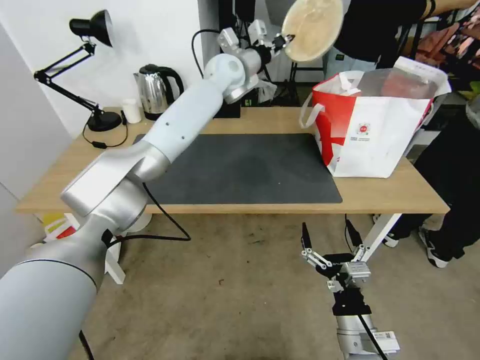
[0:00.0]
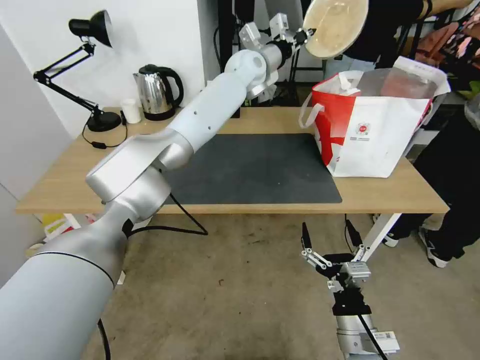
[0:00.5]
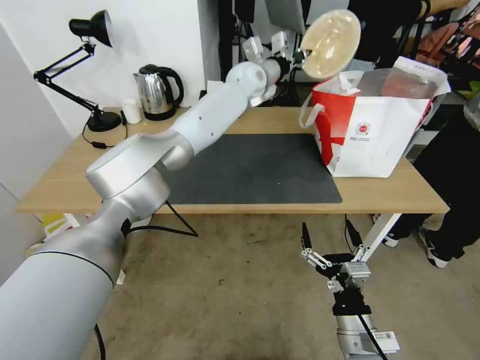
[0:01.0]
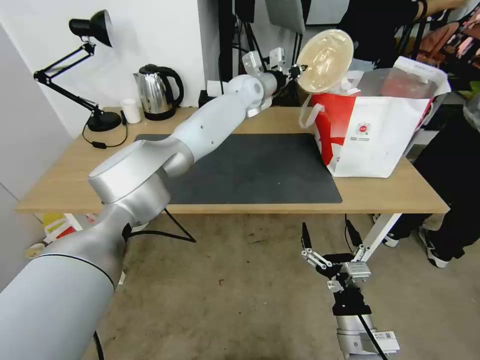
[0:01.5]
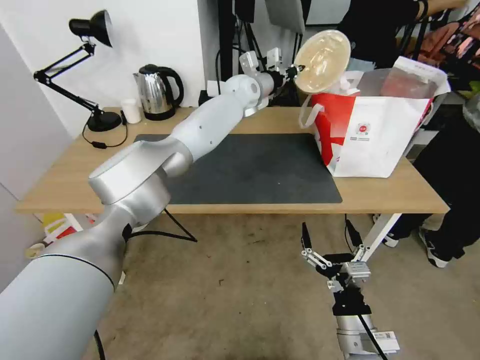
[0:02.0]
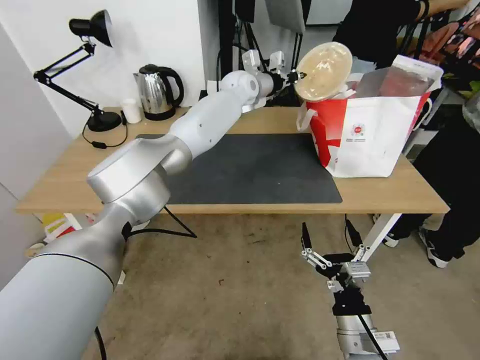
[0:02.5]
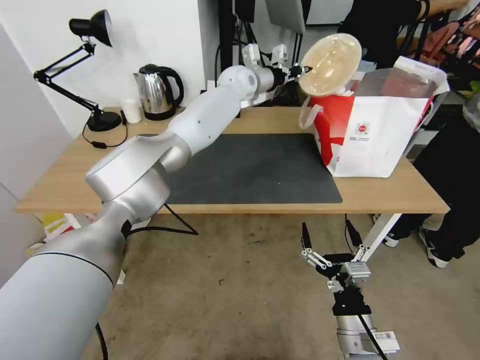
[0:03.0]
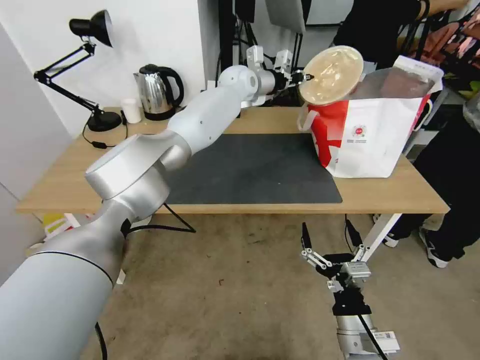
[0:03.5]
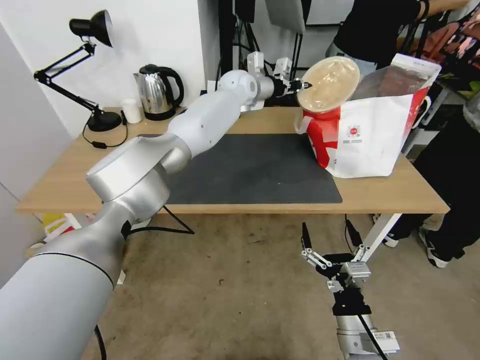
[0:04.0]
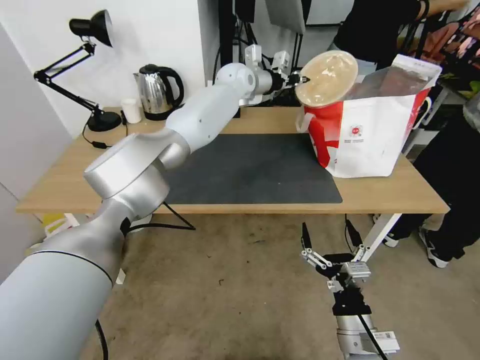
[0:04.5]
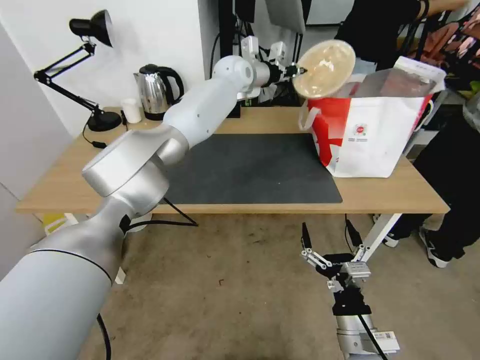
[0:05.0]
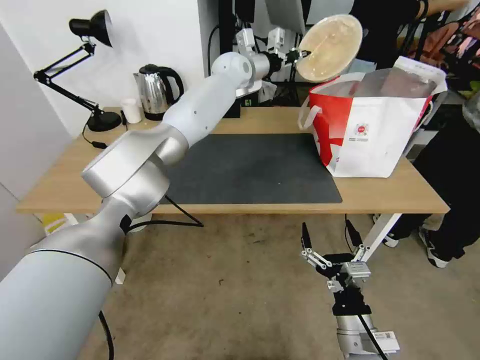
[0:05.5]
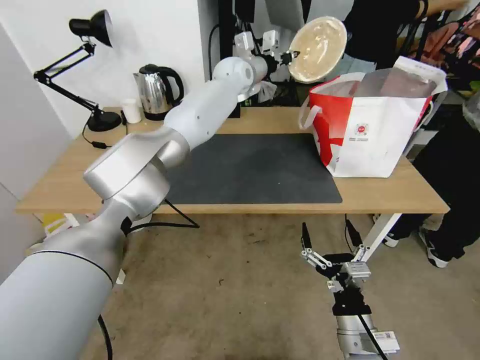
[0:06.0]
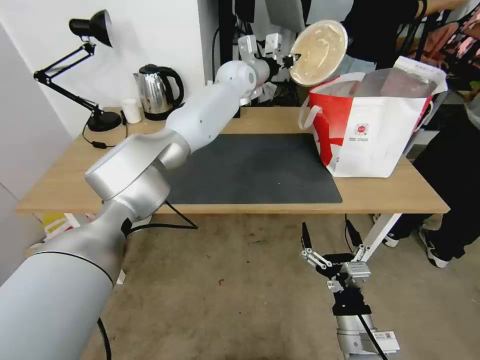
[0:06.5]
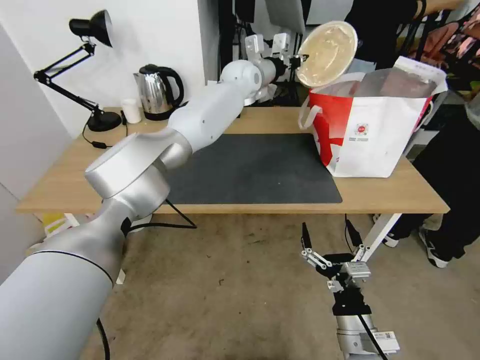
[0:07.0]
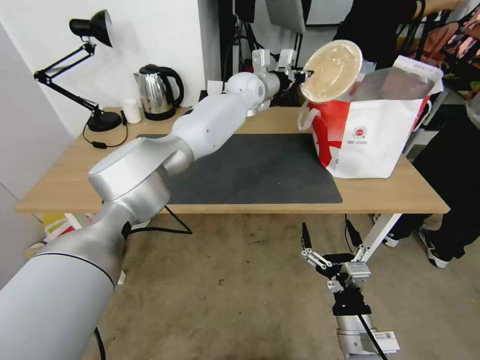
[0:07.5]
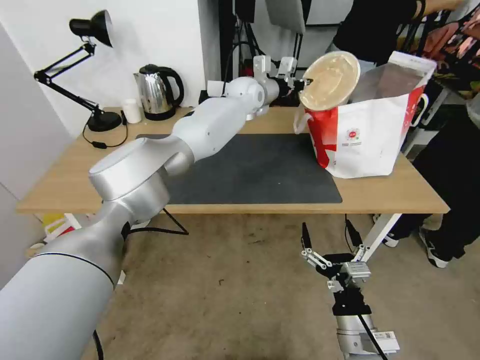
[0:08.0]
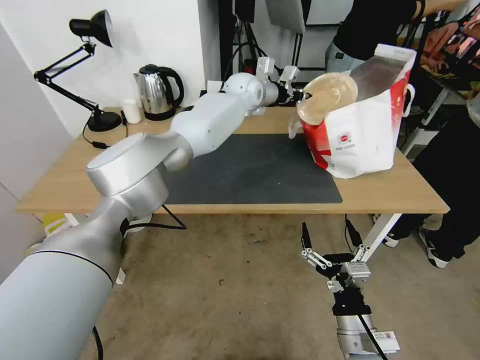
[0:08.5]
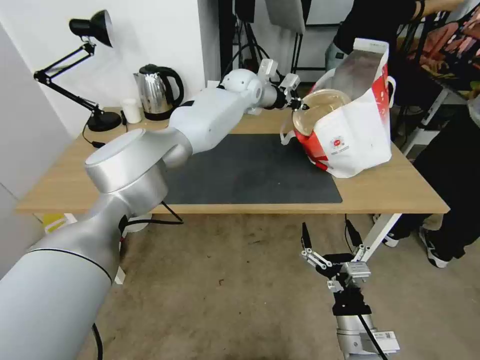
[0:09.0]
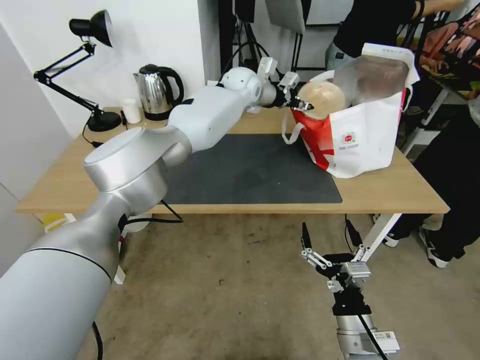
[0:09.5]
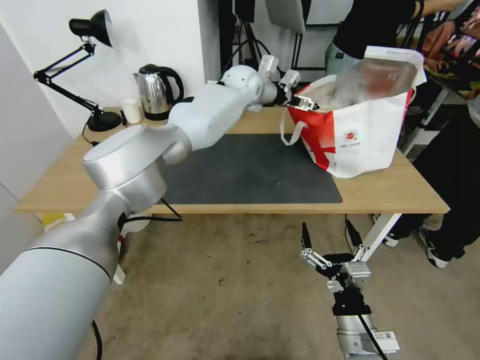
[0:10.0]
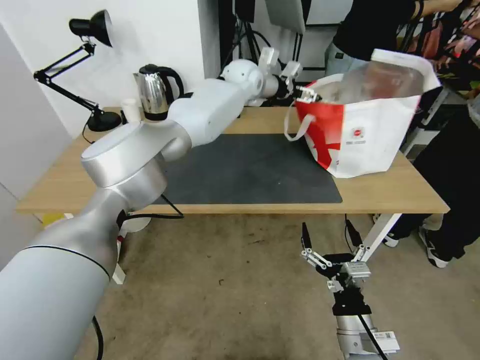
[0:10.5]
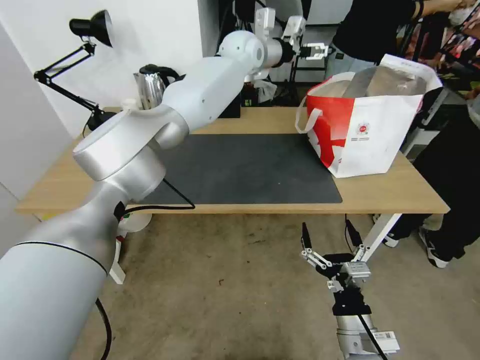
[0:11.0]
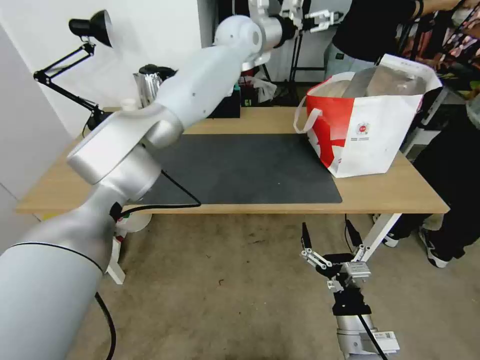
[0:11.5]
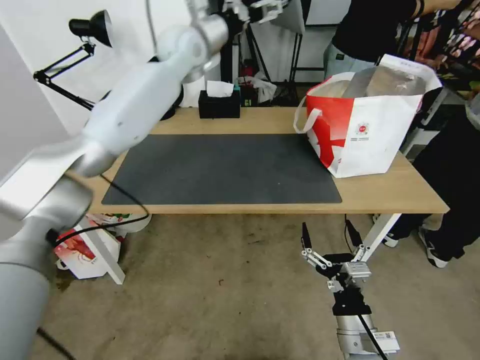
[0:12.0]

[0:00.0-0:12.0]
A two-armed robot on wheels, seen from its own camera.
Task of the whole recording: Pick up the trash from the table and place it into the takeout bag.
0:00.0 to 0:02.0: The left gripper shifts approximately 5 cm downward.
0:02.0 to 0:06.0: There are only small adjustments of the grippers.
0:06.0 to 0:08.0: The left gripper changes place by about 5 cm.
0:08.0 to 0:10.0: The left gripper opens up.
0:10.0 to 0:12.0: The left gripper shifts roughly 15 cm to the left, upward and backward.

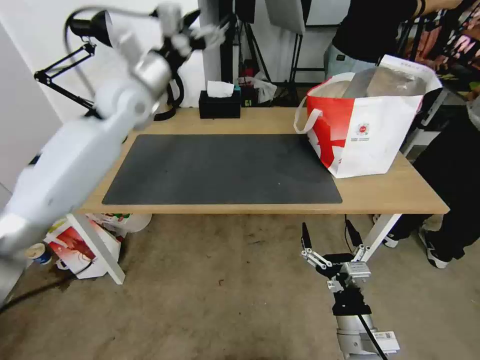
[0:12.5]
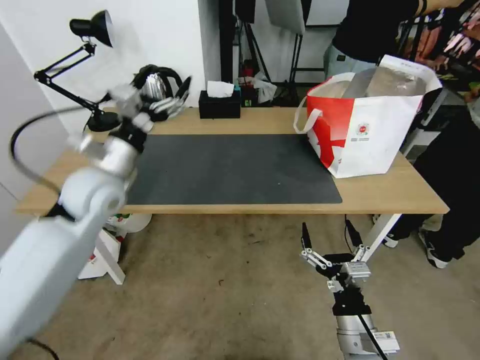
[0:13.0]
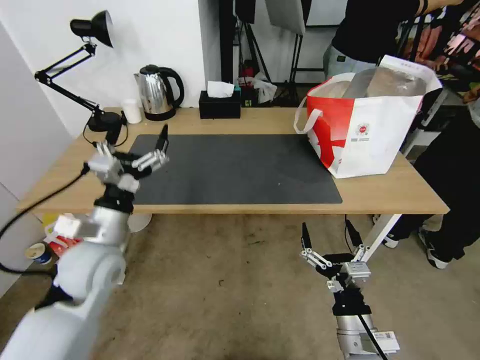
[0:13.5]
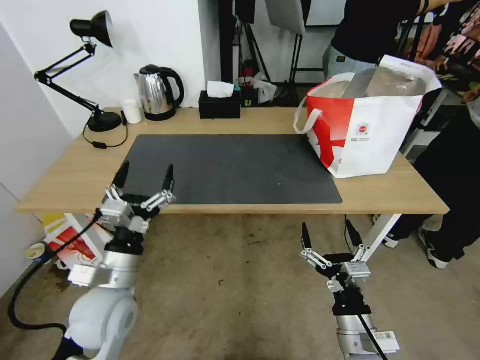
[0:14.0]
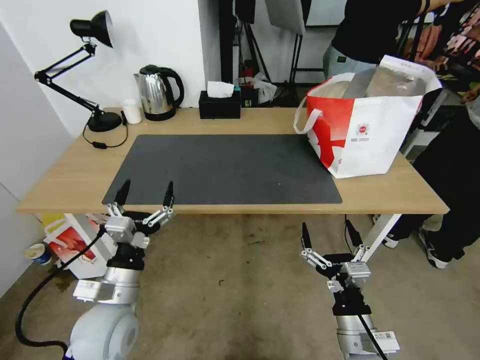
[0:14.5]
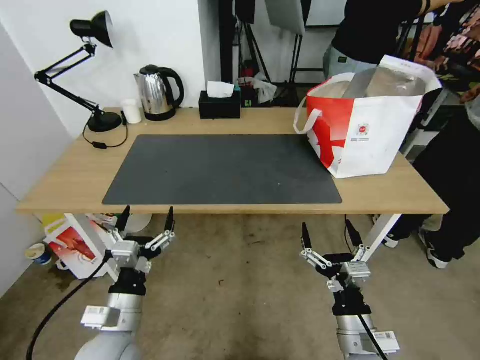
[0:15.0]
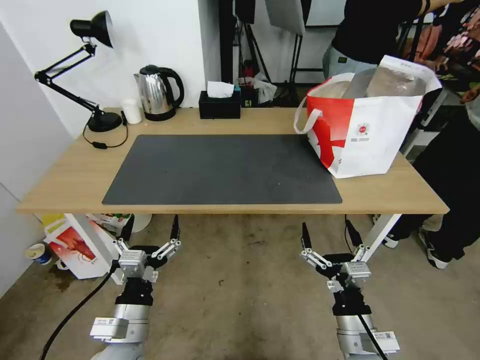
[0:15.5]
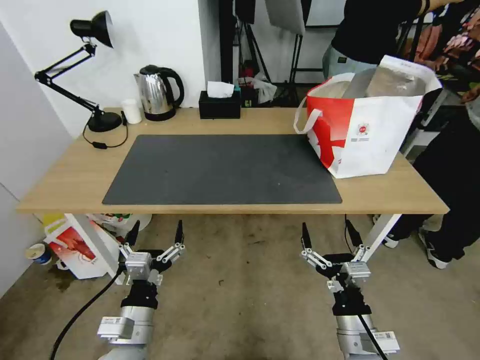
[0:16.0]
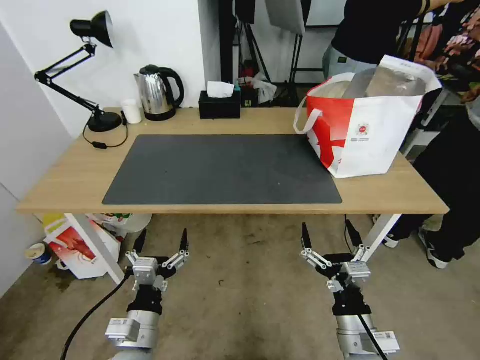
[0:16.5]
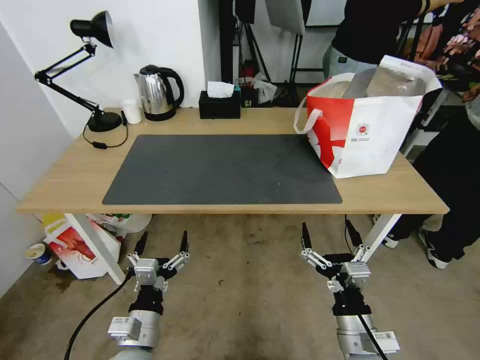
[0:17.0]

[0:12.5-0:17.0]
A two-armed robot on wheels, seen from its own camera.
Task of the whole recording: Pick up the trash from the table and place it into the takeout bag.
0:12.5 to 0:14.5: The left gripper is displaced backward and downward by roughly 40 cm.
0:14.5 to 0:17.0: The left gripper moves downward and backward, about 10 cm.

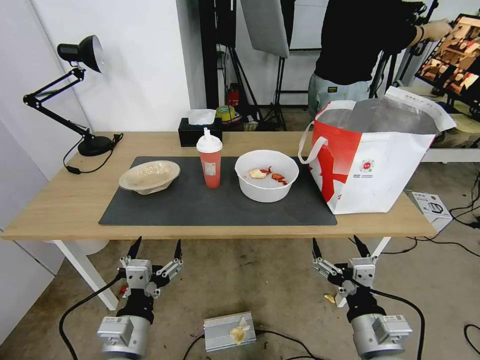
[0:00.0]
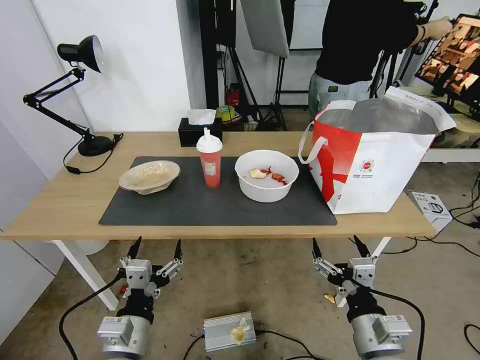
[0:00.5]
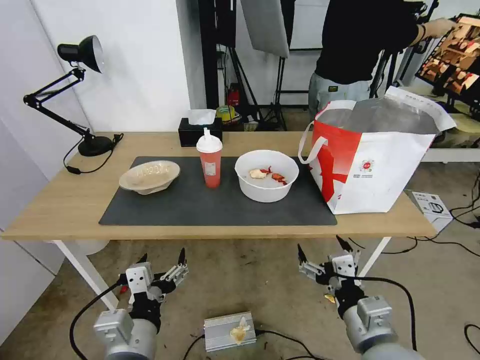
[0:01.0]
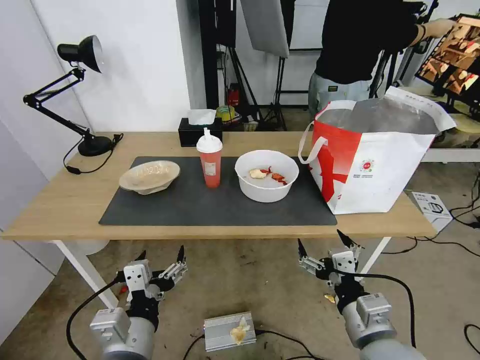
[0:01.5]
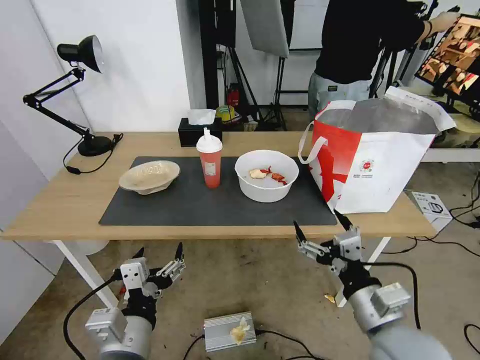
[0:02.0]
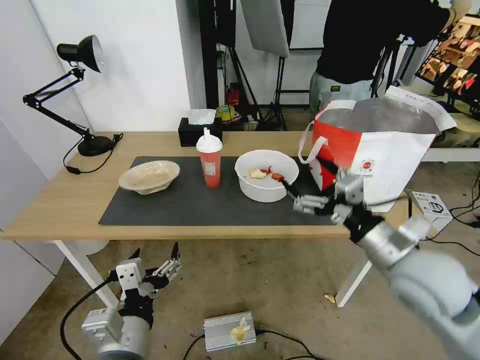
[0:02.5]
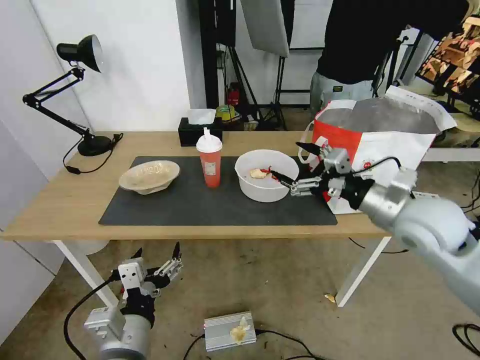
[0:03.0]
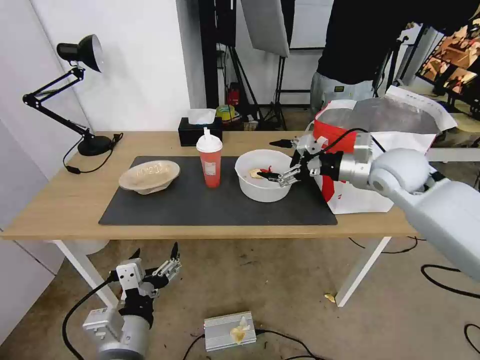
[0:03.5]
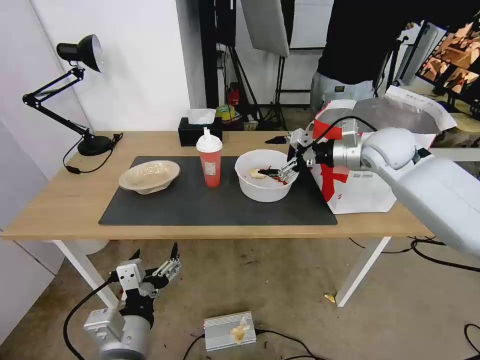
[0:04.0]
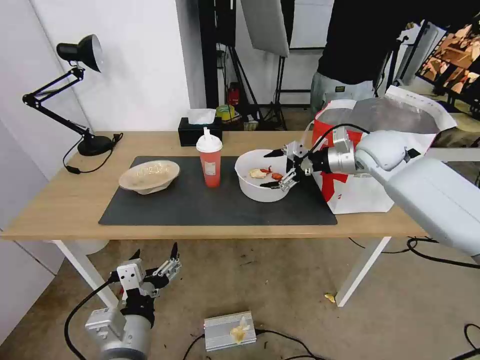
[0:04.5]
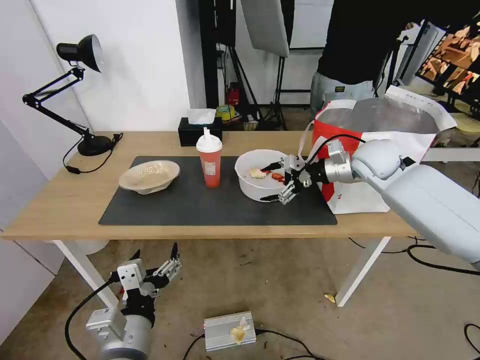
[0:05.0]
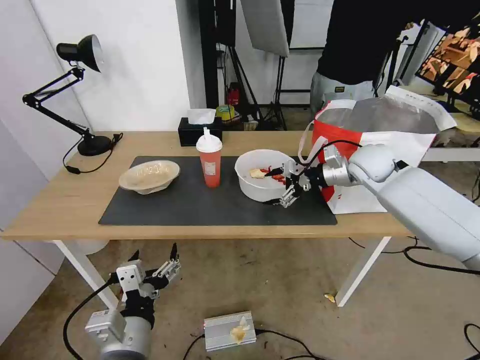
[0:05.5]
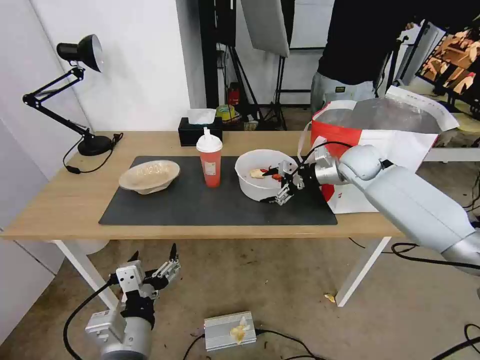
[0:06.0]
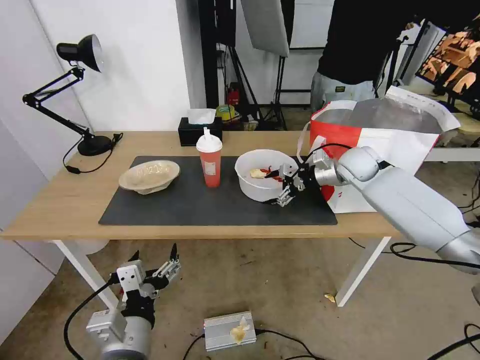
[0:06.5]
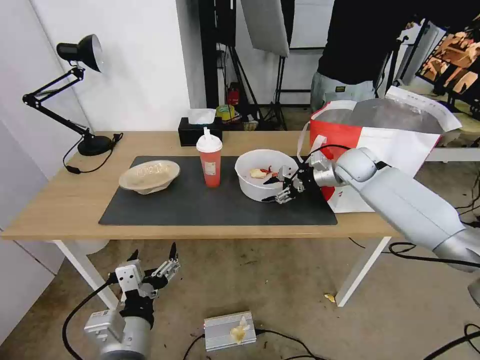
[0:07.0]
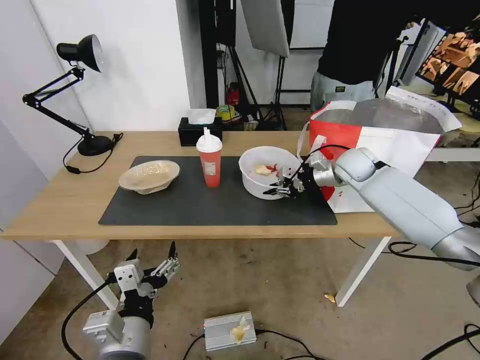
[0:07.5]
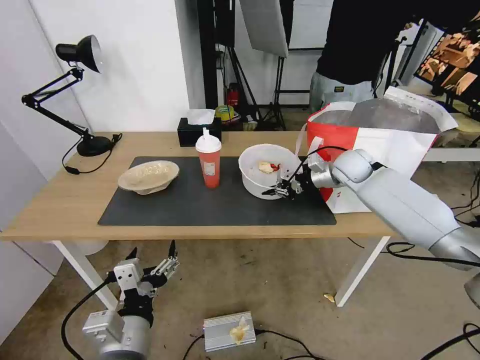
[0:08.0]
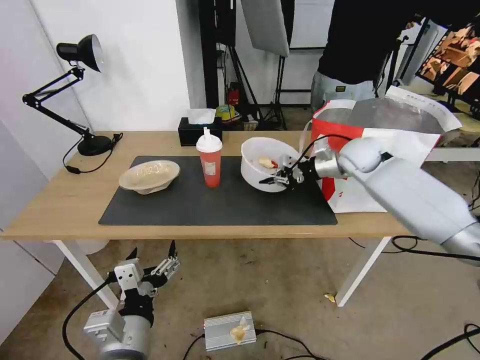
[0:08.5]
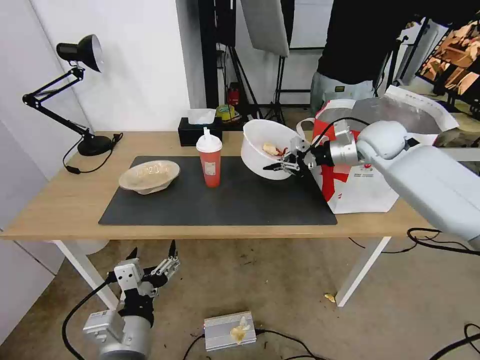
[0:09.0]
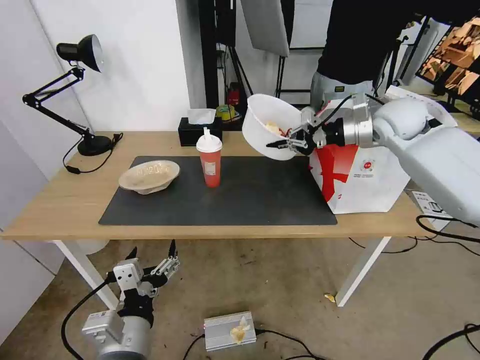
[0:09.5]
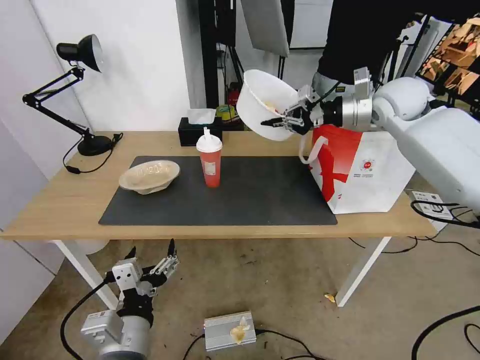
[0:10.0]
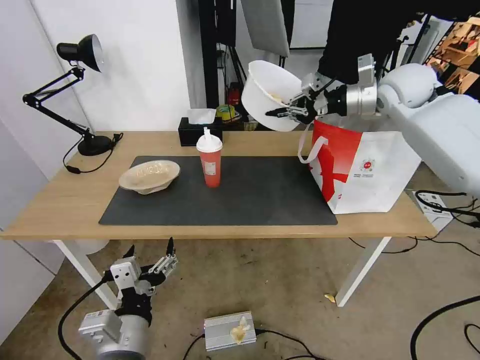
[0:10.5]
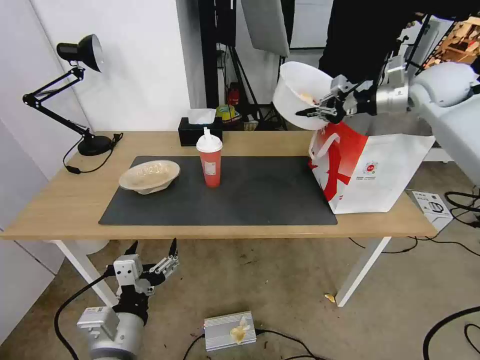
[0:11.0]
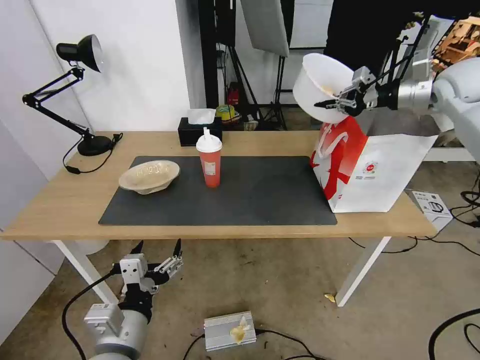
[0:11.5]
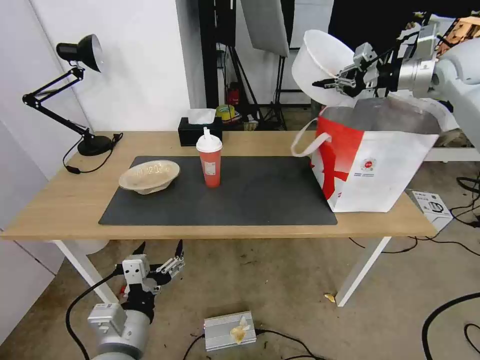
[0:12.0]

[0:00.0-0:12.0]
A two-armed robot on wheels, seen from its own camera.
Task of the whole recording: Pick up the trash from the table and place it into the takeout bag.
0:02.0 to 0:04.0: The right gripper travels forward and upward by approximately 40 cm.
0:04.0 to 0:06.0: The right gripper heads downward, covering approximately 10 cm.
0:06.0 to 0:08.0: The right gripper closes.
0:08.0 to 0:10.0: The right gripper heads upward, covering about 20 cm.
0:10.0 to 0:12.0: The right gripper moves to the right and upward, about 15 cm.
